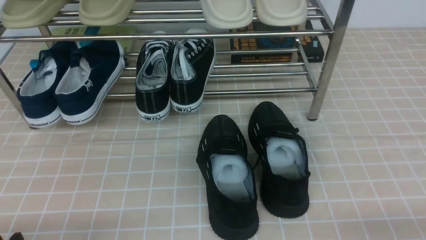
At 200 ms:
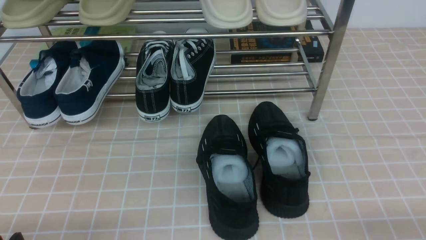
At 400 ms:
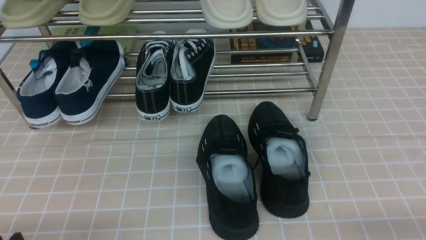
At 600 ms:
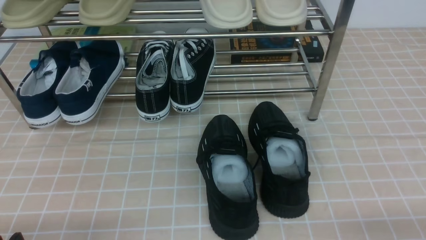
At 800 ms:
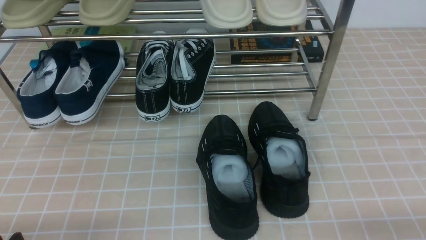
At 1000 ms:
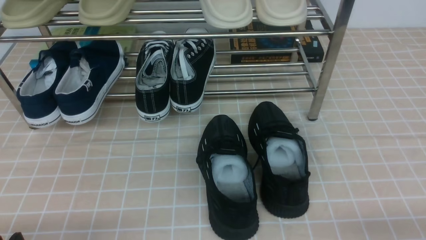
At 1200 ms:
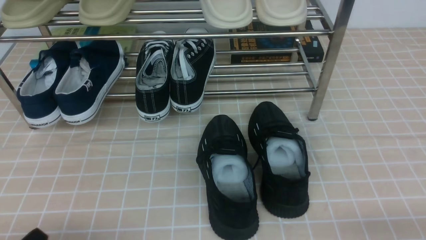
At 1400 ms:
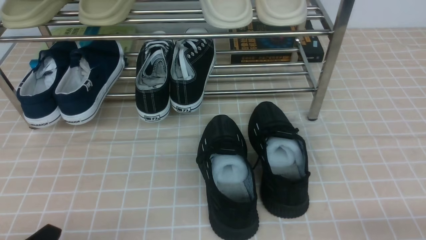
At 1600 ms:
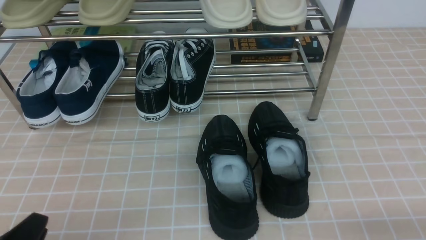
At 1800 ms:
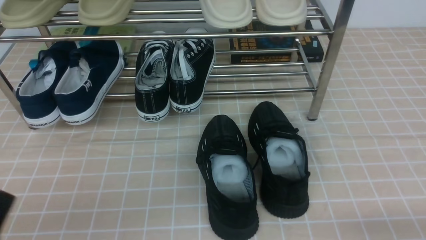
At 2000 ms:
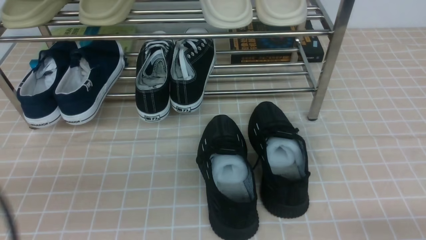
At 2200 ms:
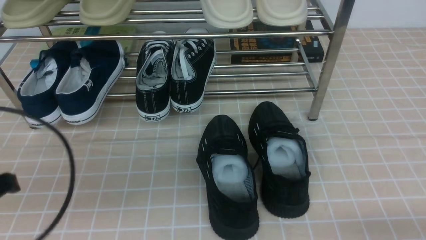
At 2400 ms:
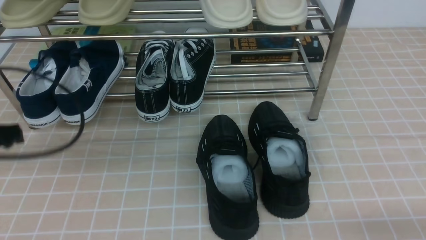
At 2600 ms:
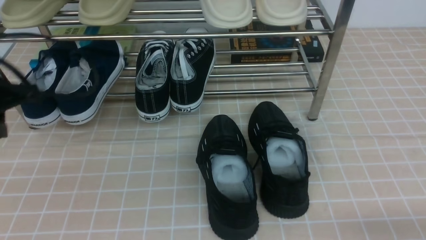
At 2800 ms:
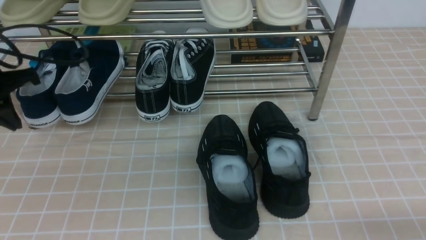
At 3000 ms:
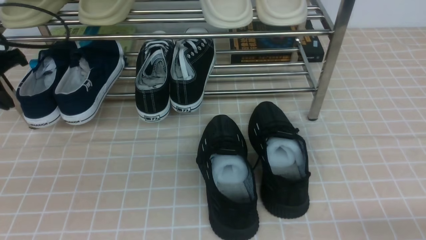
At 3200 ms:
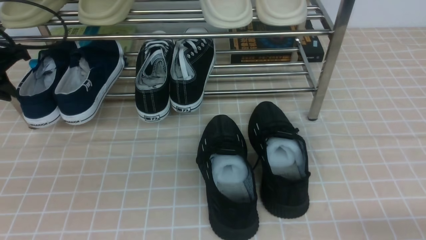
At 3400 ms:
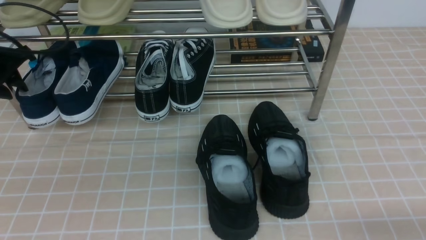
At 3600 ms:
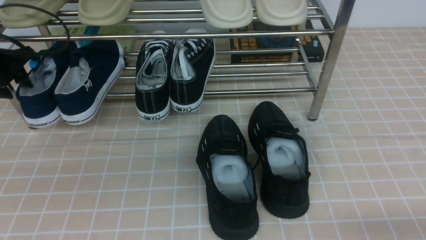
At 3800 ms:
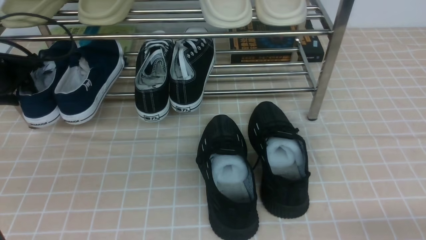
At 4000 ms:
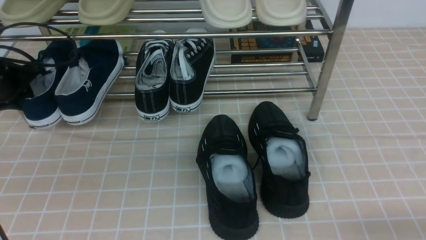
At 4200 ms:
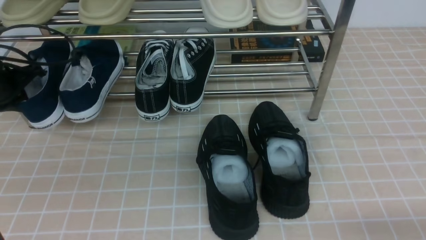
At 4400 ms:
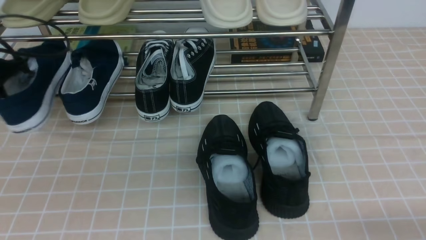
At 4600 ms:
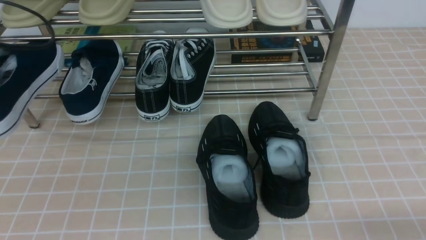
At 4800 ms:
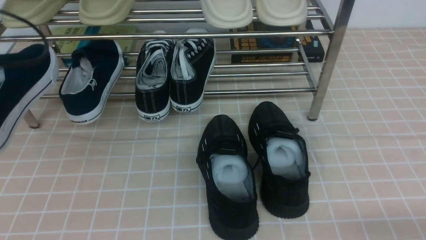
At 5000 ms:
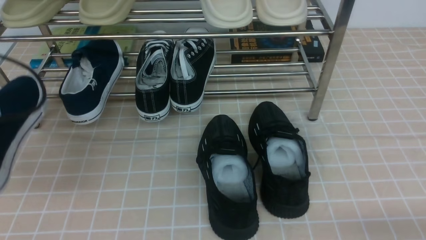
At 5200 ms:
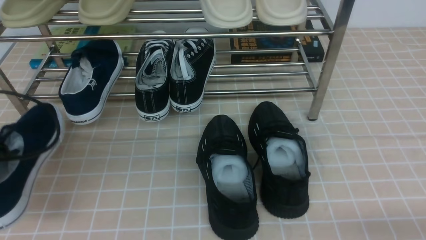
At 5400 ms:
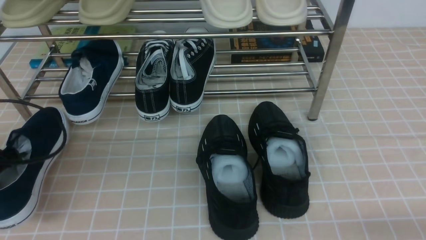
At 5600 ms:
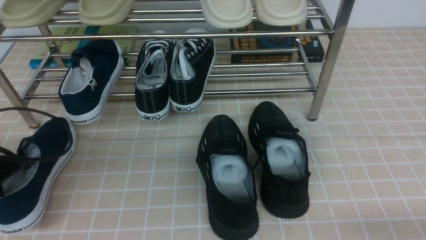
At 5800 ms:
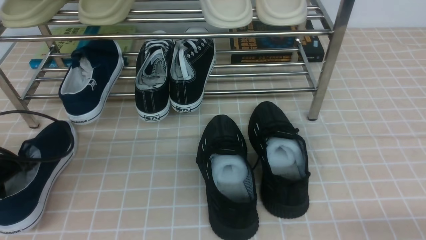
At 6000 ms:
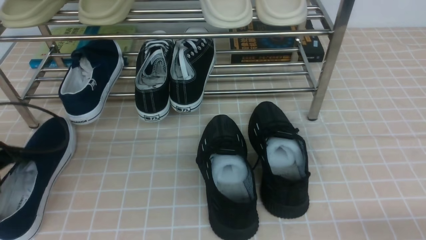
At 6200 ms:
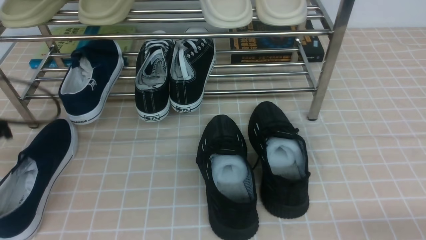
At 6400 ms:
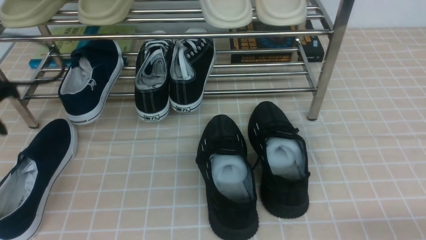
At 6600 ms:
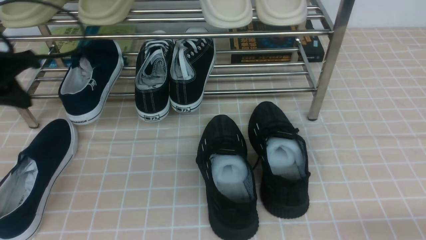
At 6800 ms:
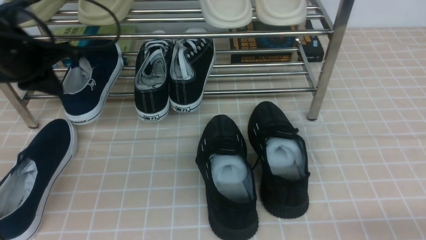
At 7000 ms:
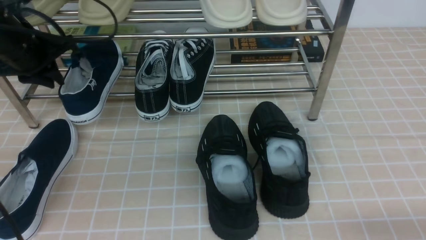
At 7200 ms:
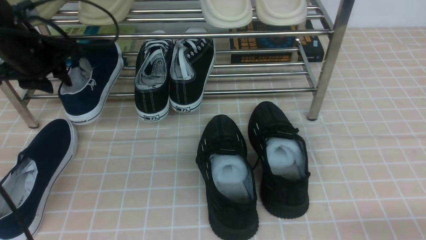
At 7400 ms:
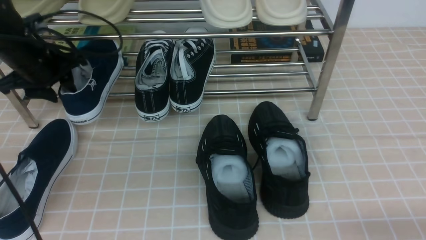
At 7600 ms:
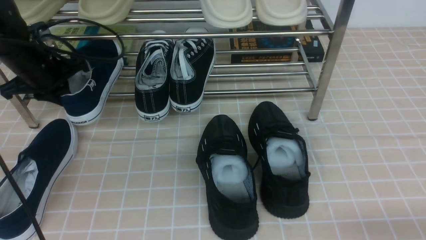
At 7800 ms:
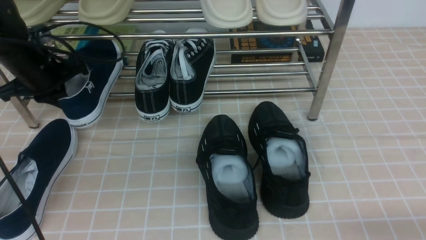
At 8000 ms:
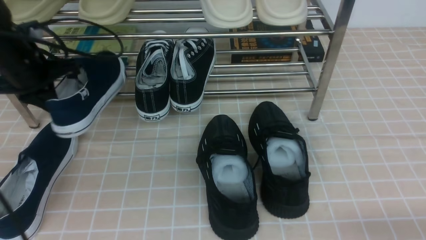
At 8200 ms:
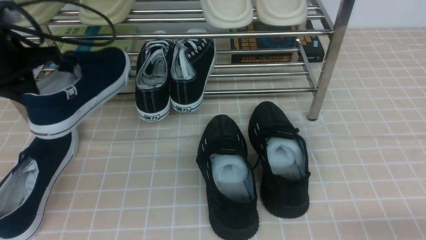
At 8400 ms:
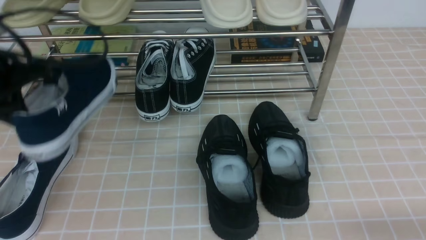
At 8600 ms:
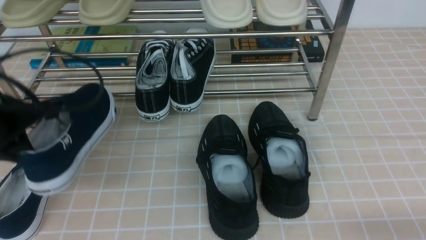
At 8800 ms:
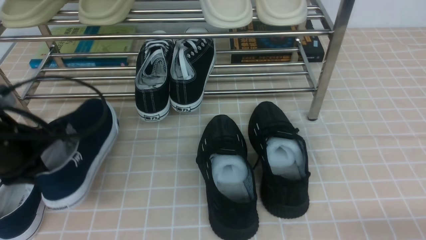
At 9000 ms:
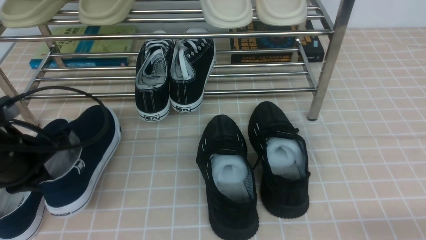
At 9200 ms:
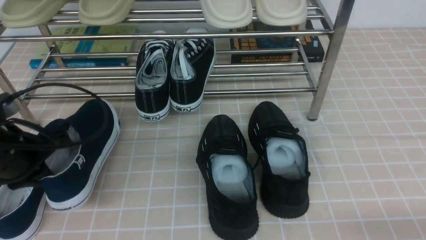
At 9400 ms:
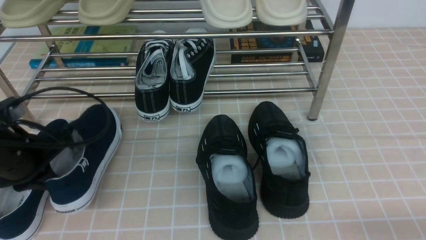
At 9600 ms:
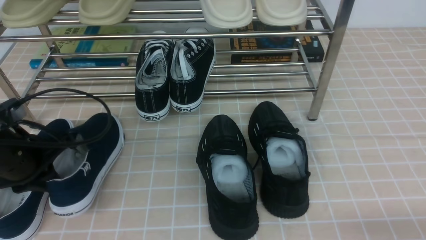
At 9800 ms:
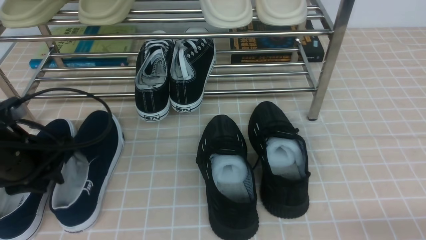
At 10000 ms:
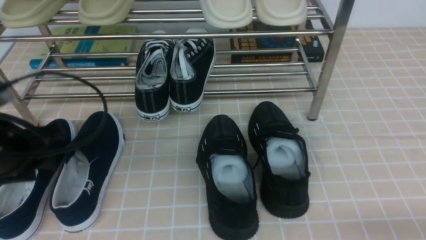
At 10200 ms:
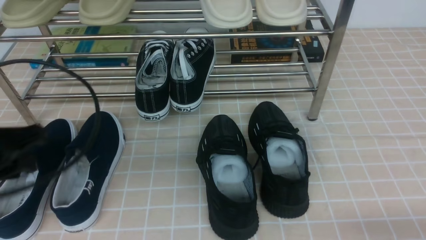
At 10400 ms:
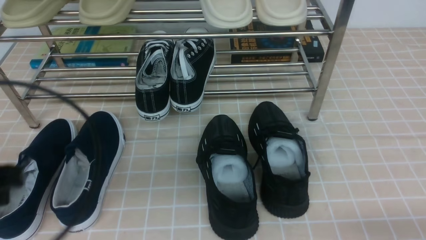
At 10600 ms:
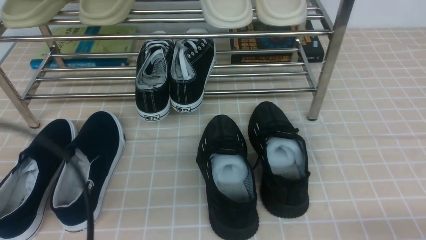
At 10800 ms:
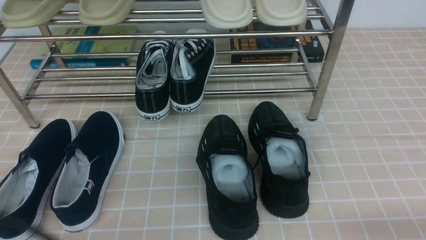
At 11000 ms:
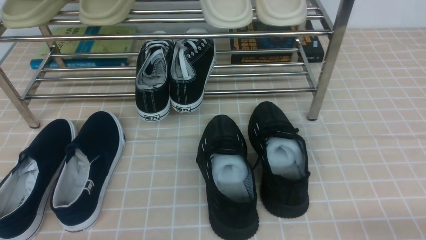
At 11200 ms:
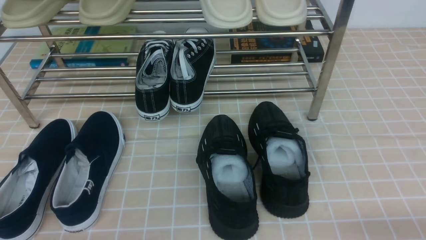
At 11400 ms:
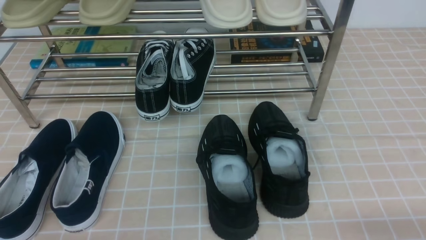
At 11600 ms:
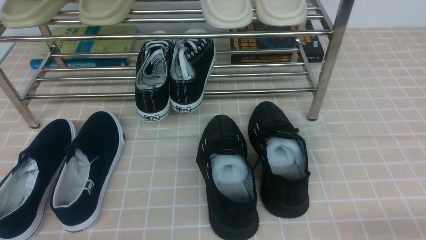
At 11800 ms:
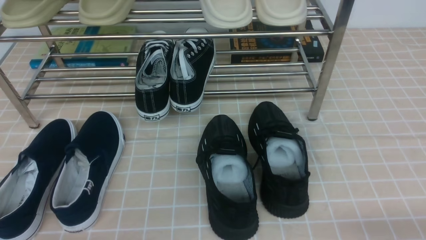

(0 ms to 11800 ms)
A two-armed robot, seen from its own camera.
Step, 0 ms - 4000 ms: use the left arm to clamp a shoe on the left side of the shoe rack.
Step, 4200 ms - 6200 ms: Use your left arm to remove the clamped shoe from the shoe rack and put it down.
Step, 6600 ms - 7600 ms: use the left arm to clamp a shoe on the left side of the shoe rack.
Step, 7800 ms - 10000 ms: Use your left arm to remove the clamped shoe from the shoe rack and put it down.
1400 ms - 3000 ms: The left gripper moves forward and upward, approximately 30 cm, and closes its fingers.
3000 ms - 4400 ms: The left gripper opens, then closes again.
4400 ms - 6000 ms: The left gripper heads backward and downward, covering approximately 10 cm, and opens up.
6000 ms - 7400 ms: The left gripper goes about 15 cm forward, and closes, then opens again.
7400 ms - 8800 ms: The left gripper heads backward, covering about 15 cm, and closes up.
8800 ms - 10400 ms: The left gripper shifts approximately 15 cm backward and upward, and opens, then closes again.
10400 ms - 11800 ms: The left gripper travels backward by roughly 10 cm.

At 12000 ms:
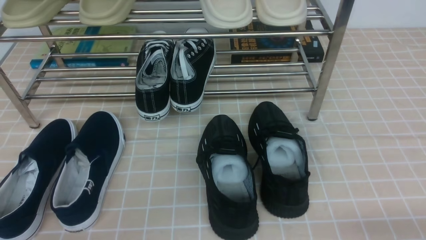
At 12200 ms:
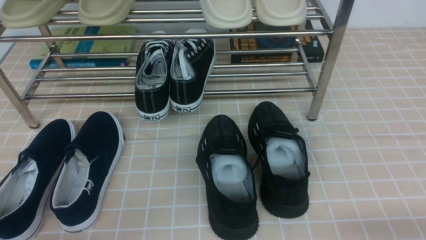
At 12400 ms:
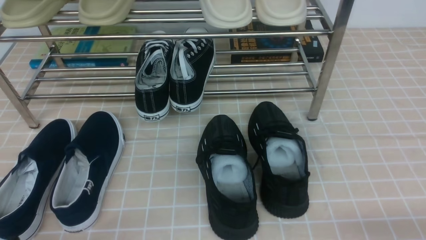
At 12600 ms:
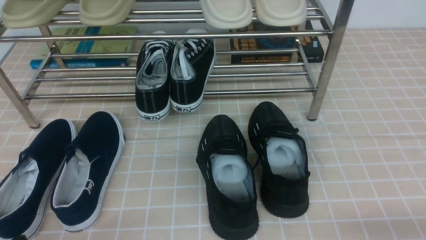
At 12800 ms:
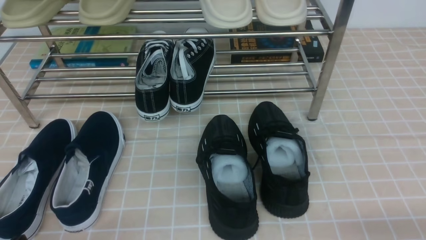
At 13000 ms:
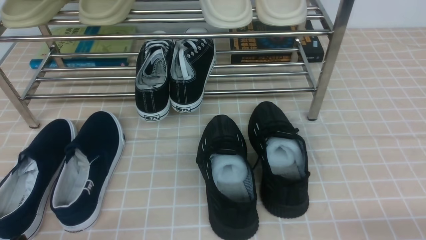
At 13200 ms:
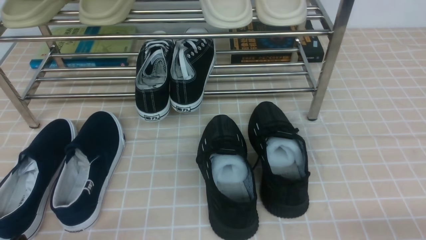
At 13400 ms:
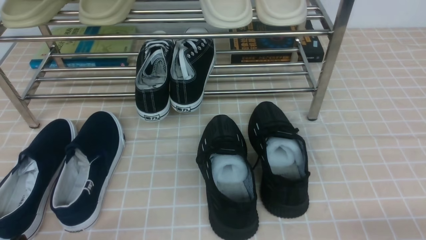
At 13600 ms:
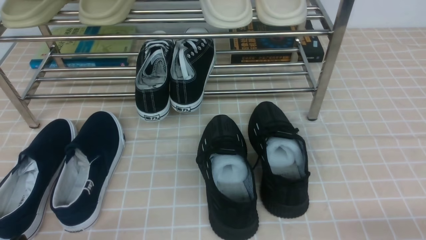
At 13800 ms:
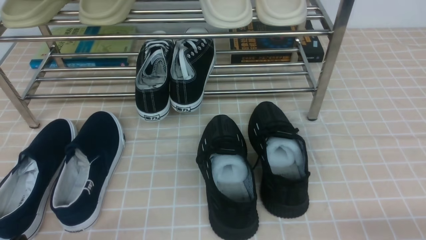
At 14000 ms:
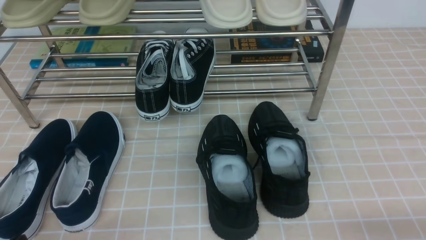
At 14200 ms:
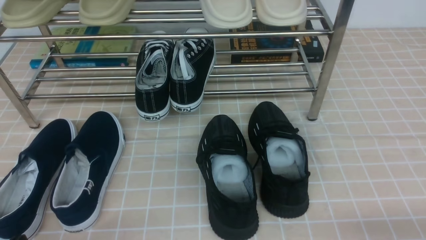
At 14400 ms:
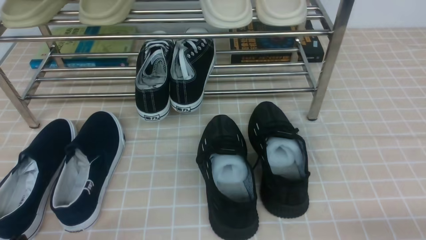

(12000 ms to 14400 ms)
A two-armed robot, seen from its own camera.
13200 ms - 14400 ms: Neither gripper changes place.

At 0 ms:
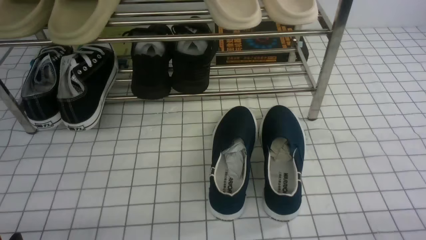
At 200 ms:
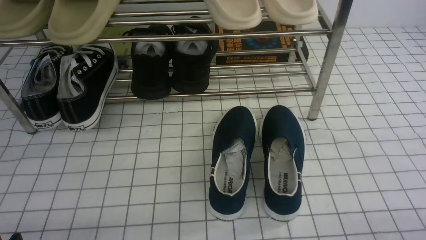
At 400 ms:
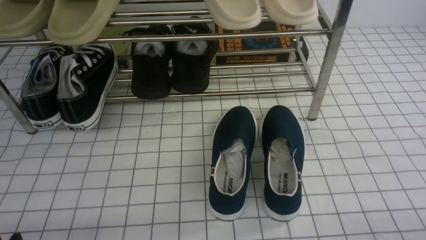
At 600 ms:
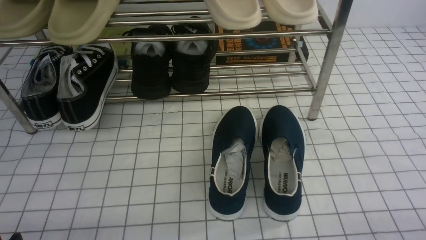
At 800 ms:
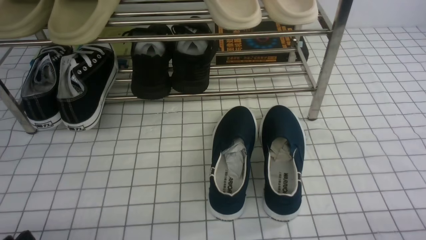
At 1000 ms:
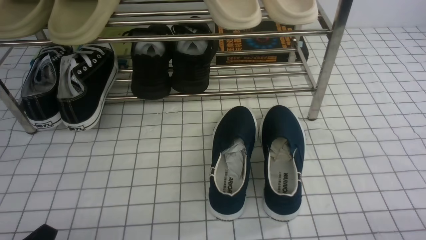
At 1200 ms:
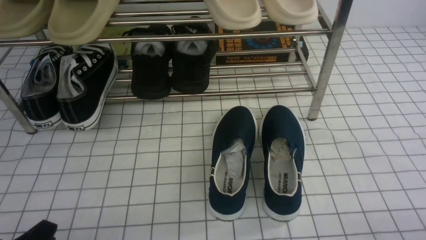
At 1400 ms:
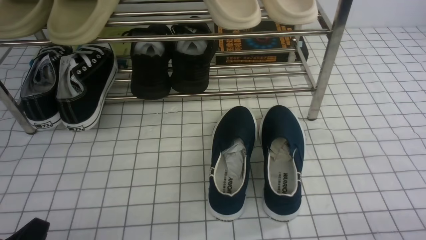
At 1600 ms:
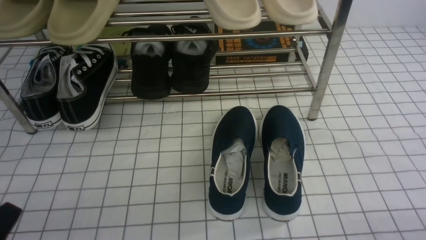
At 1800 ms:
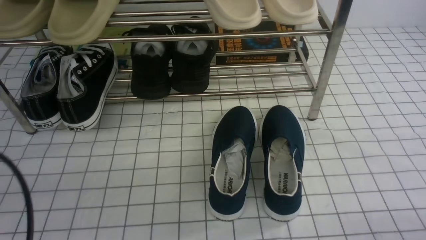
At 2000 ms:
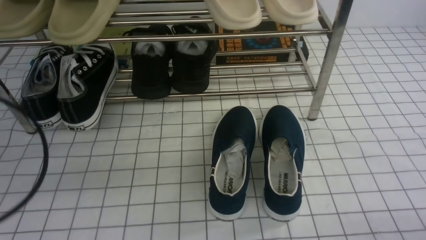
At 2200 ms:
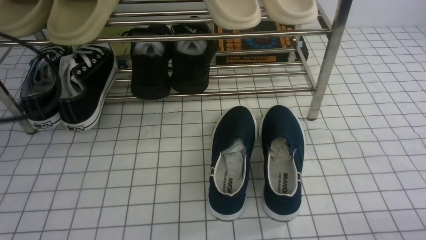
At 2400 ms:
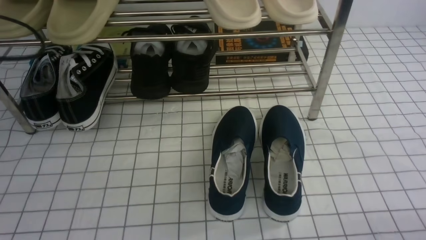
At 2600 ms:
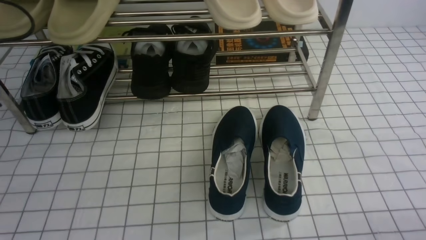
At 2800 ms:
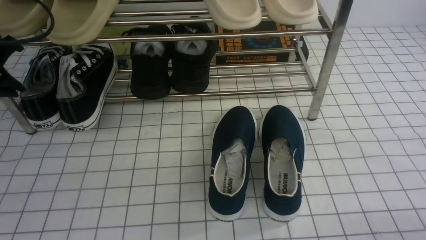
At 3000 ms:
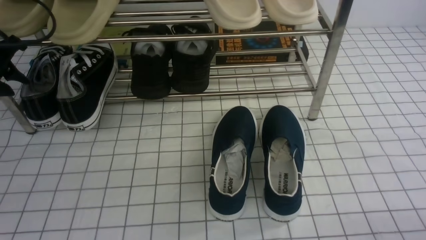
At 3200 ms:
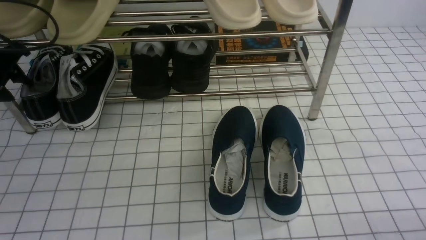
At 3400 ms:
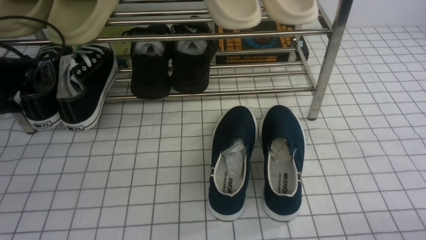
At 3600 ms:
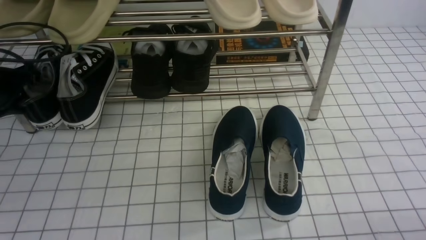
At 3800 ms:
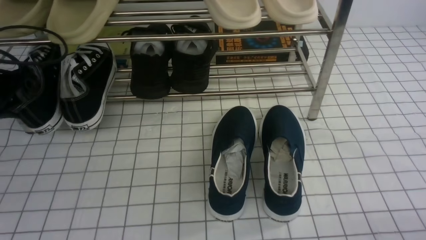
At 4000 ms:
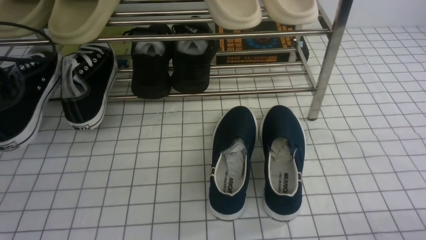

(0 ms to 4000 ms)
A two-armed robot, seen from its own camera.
Step, 0 ms - 3600 ms: use the left arm to clamp a shoe on the left side of the shoe rack.
1400 ms - 2600 ms: The left gripper goes about 30 cm forward and upward.
2600 ms - 4000 ms: The left gripper opens, then closes again.
